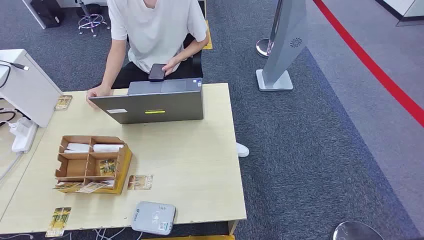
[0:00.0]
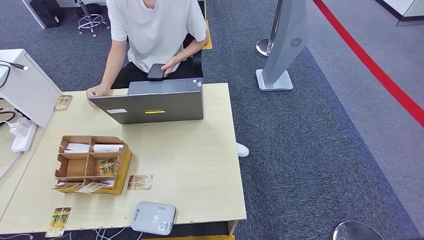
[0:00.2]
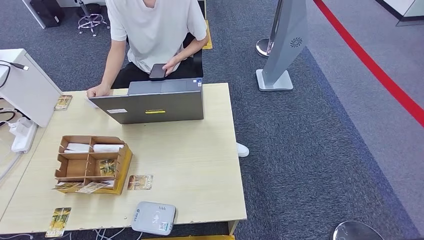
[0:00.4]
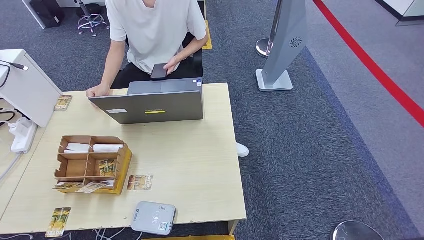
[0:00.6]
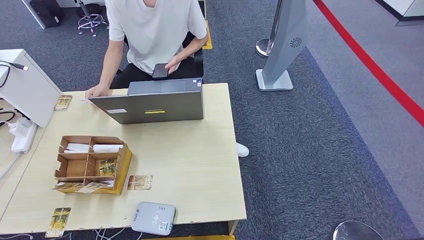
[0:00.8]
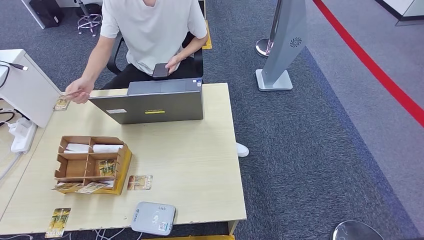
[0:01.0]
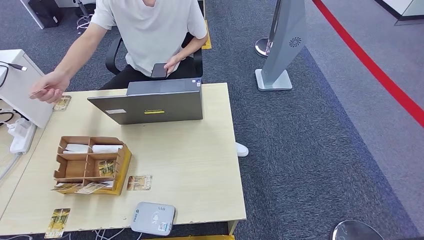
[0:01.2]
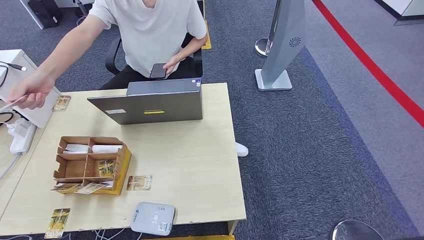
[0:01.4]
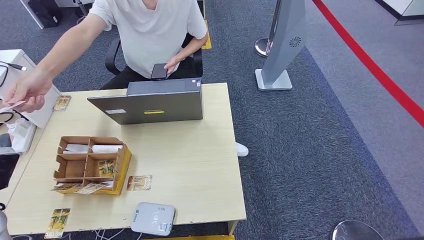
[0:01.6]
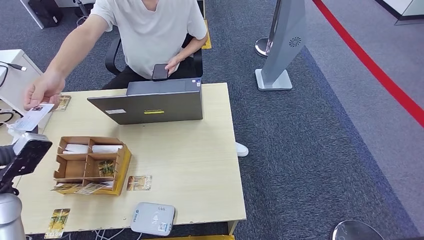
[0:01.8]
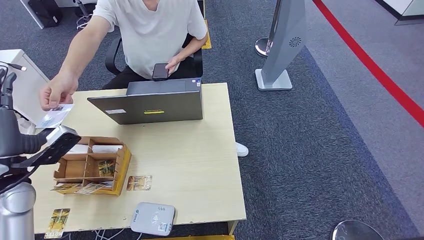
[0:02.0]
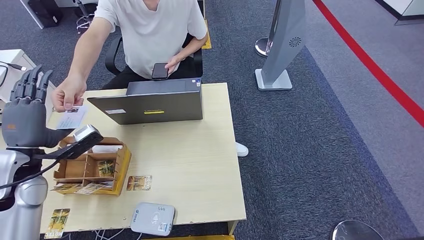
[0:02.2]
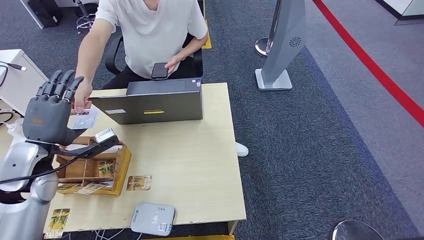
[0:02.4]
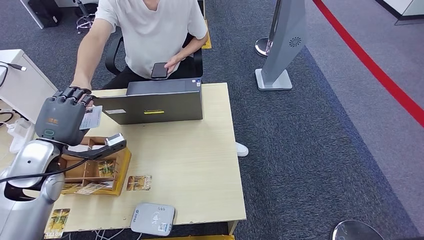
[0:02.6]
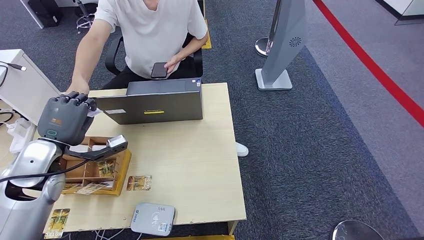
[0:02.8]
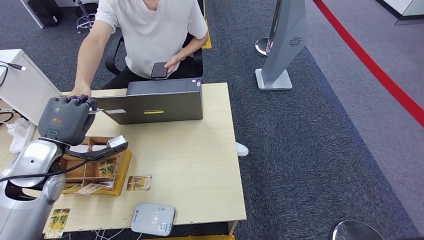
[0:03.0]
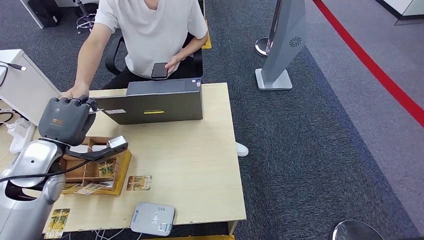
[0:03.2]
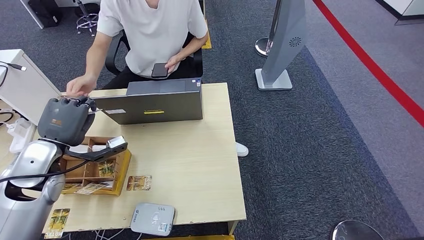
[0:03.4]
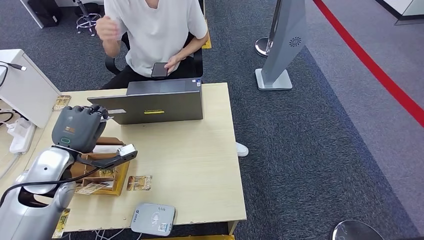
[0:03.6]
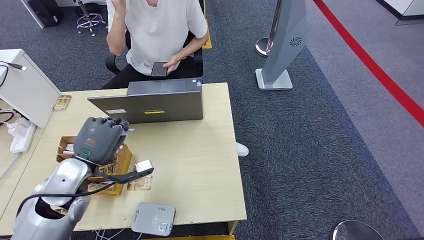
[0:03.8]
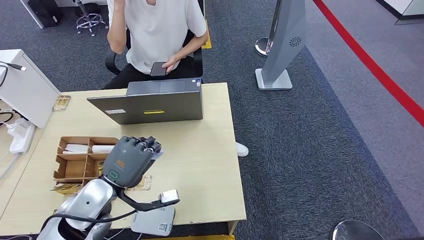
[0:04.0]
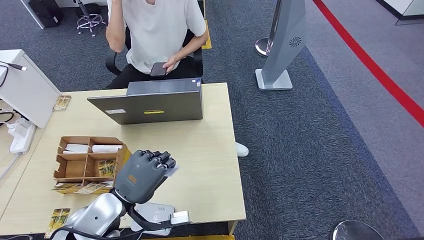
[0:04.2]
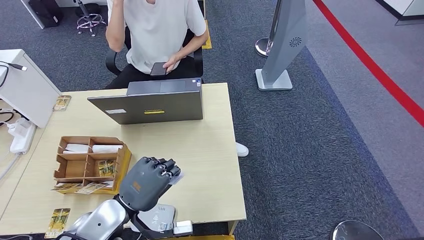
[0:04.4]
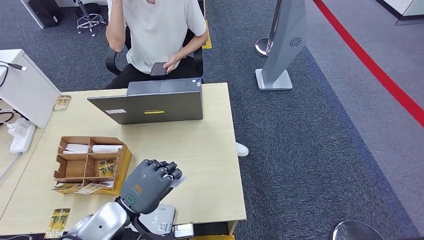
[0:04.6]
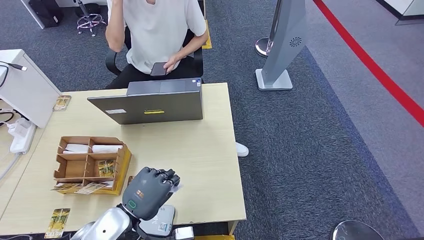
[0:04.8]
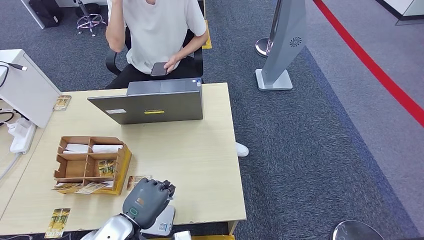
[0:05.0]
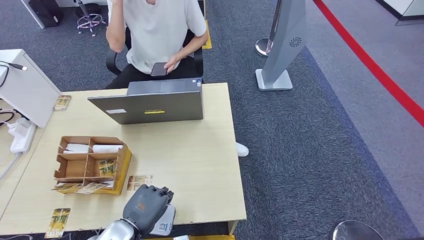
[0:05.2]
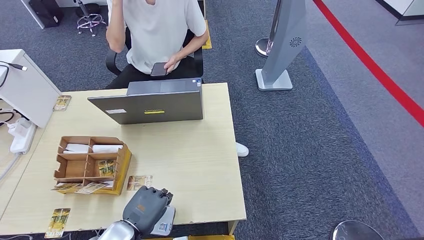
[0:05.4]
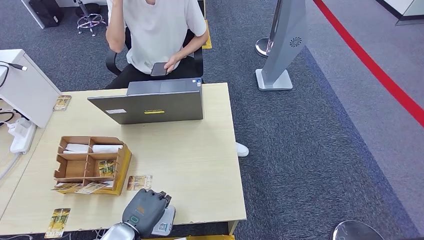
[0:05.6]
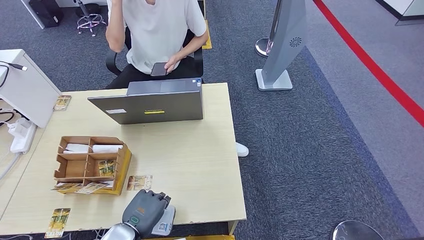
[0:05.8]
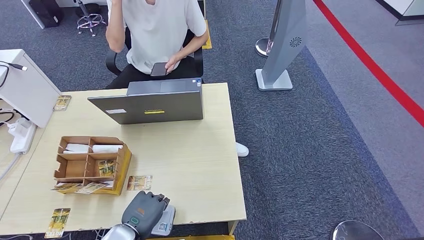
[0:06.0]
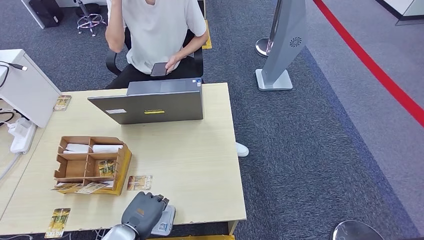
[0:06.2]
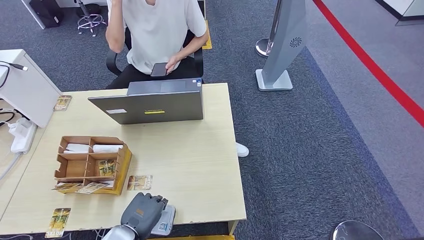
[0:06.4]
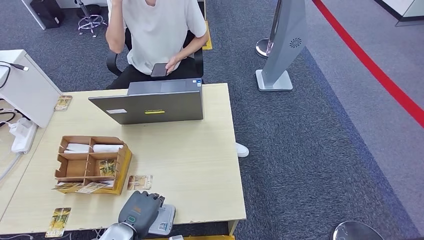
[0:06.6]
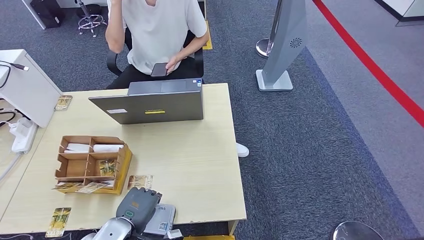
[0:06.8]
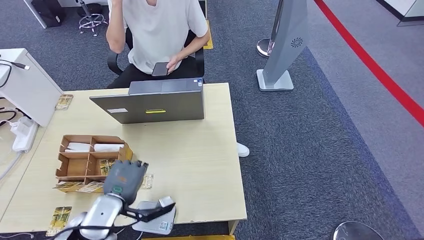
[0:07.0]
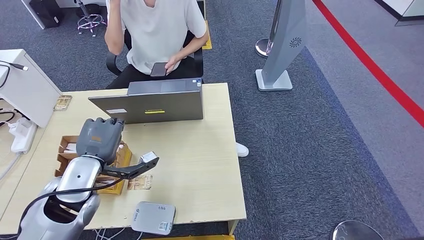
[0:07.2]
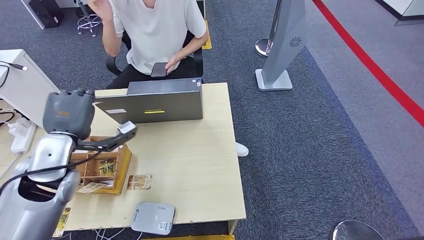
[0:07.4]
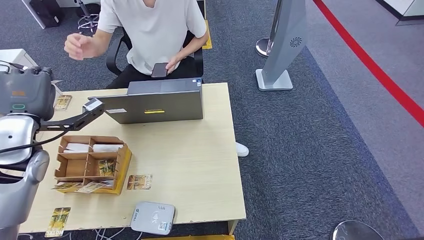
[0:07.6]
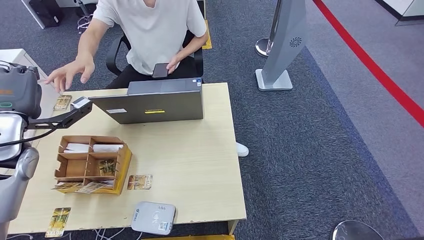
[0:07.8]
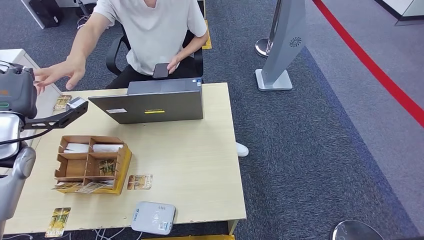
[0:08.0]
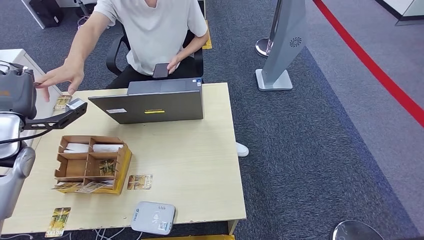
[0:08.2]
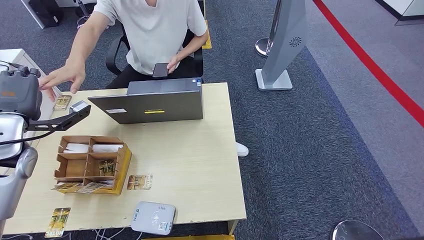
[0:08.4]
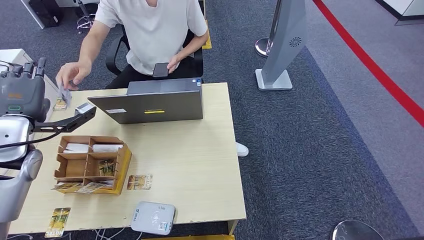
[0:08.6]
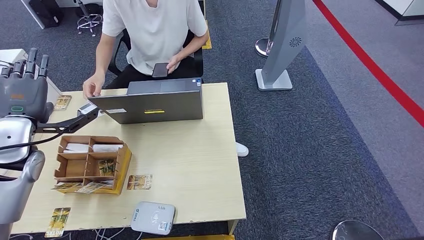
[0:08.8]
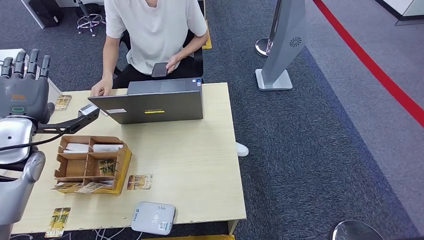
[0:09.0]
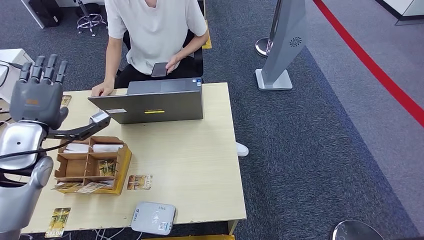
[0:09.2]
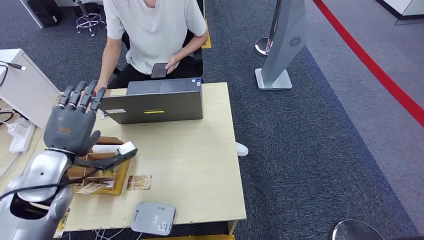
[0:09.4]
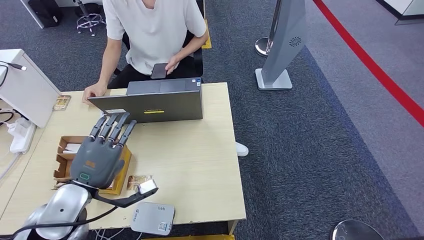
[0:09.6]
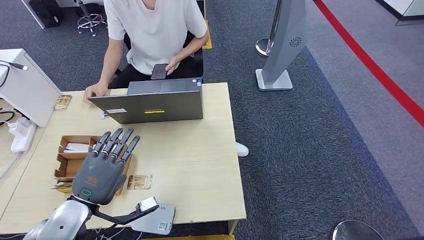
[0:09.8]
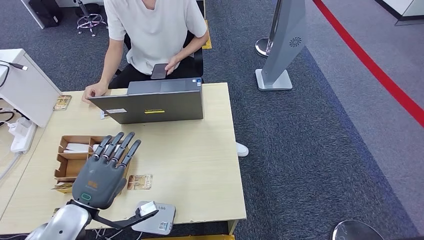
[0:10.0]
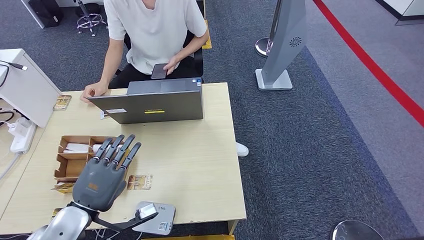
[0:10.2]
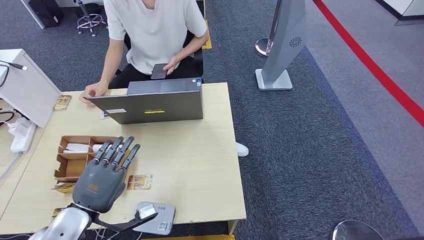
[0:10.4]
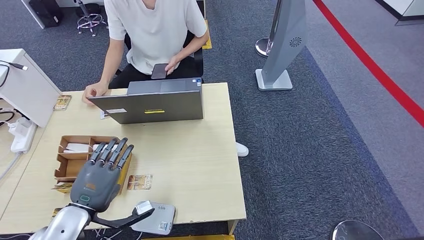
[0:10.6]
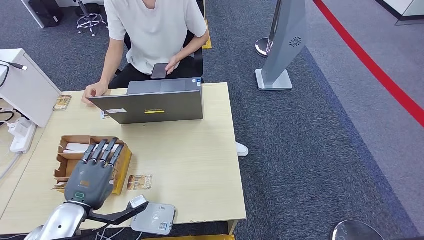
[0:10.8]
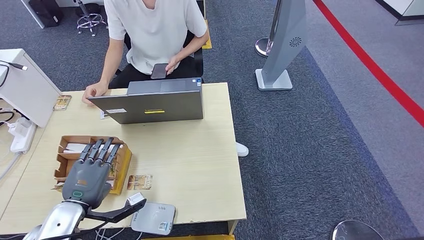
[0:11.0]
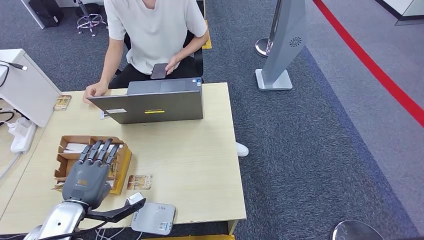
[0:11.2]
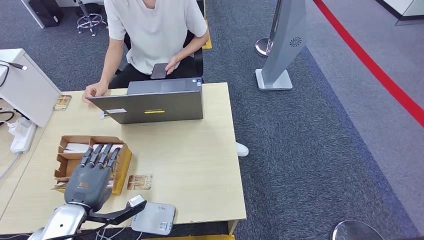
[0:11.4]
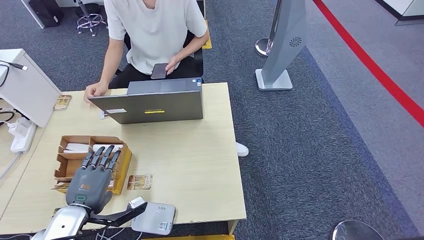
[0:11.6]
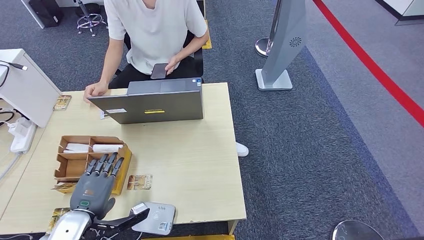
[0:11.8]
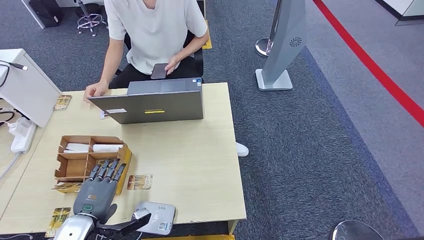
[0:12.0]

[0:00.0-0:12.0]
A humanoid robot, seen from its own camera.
Step, 0:00.0 to 0:03.0: Take the ID card from the person's hand.
Step, 0:03.2 to 0:06.2: Place the ID card on the card reader.
Step, 0:06.6 to 0:08.6: Hand the ID card to the person.
0:01.6 to 0:03.0: The left hand heads to the right and forward, covering roughly 15 cm.
0:03.0 to 0:04.4: The left hand heads to the right, backward and downward, covering roughly 20 cm.
0:04.4 to 0:06.0: The left hand moves downward, about 10 cm.
0:06.0 to 0:07.6: The left hand travels upward, forward and to the left by some 30 cm.
0:07.6 to 0:09.0: The hands stay close to where they were, moving slightly.
0:09.0 to 0:10.4: The left hand moves backward, downward and to the right, roughly 20 cm.
0:10.4 to 0:12.0: The left hand moves downward, about 5 cm.

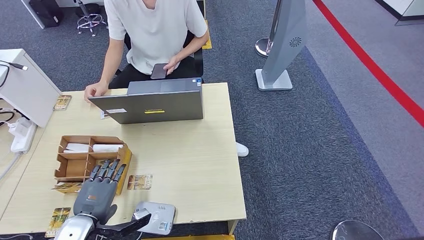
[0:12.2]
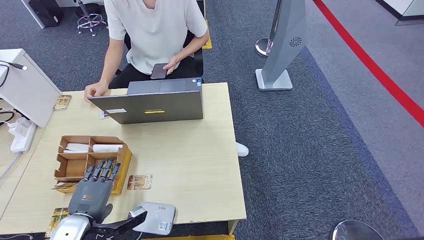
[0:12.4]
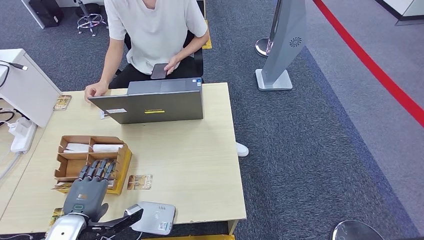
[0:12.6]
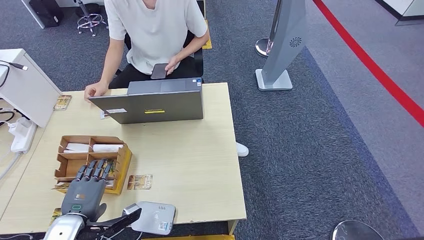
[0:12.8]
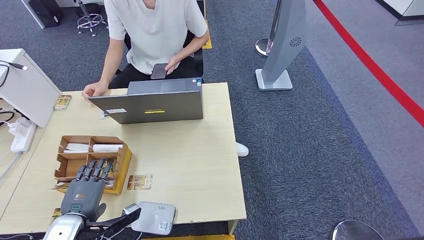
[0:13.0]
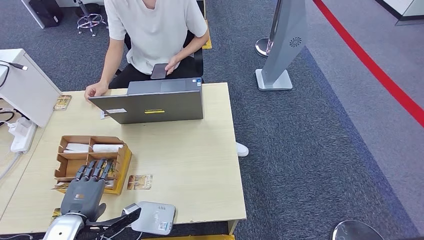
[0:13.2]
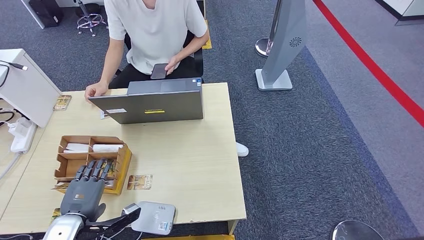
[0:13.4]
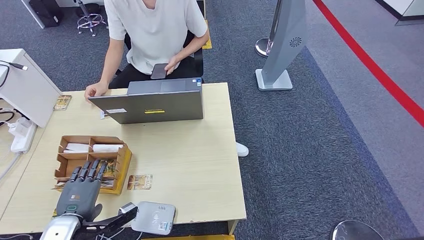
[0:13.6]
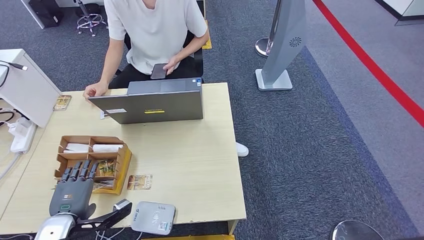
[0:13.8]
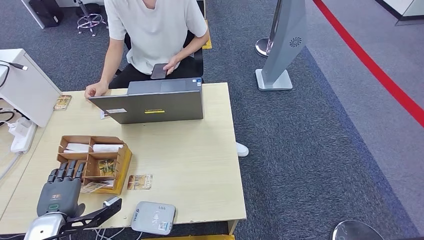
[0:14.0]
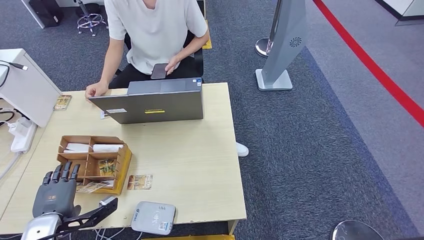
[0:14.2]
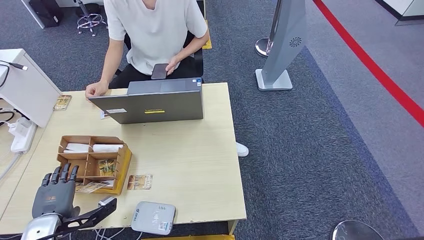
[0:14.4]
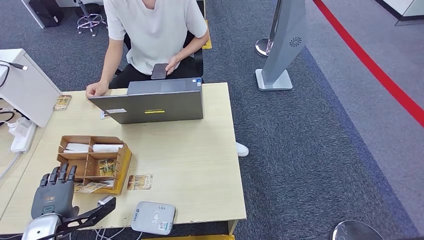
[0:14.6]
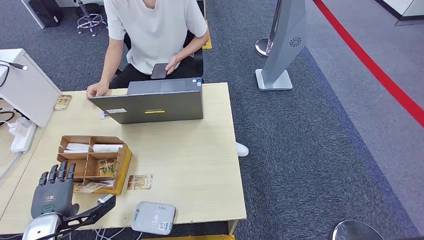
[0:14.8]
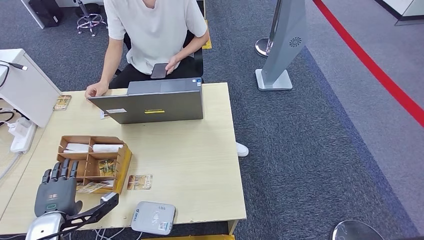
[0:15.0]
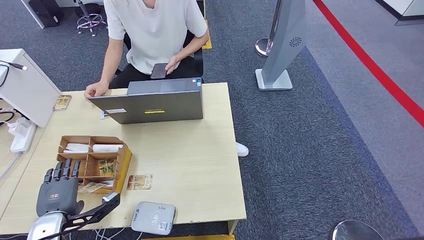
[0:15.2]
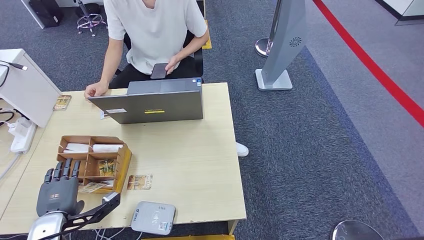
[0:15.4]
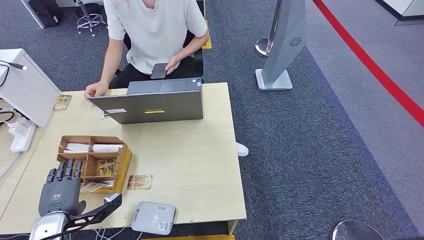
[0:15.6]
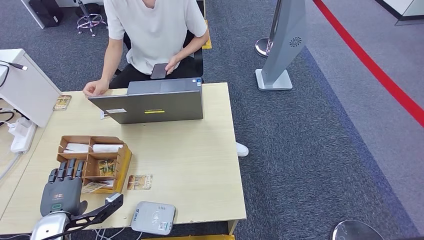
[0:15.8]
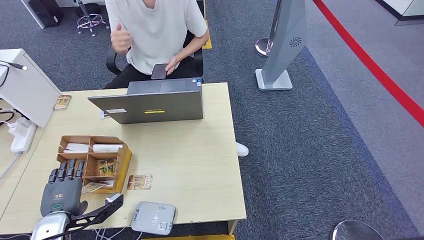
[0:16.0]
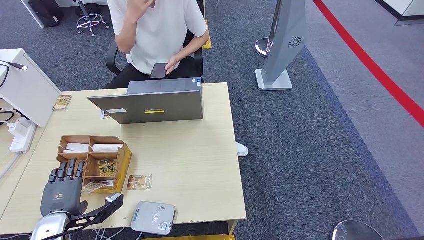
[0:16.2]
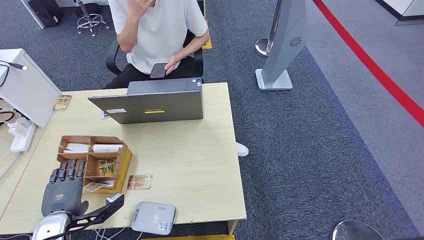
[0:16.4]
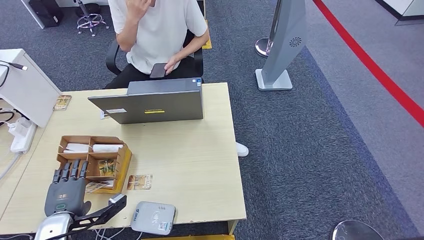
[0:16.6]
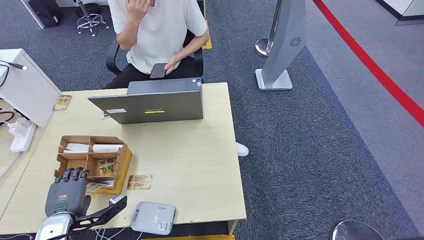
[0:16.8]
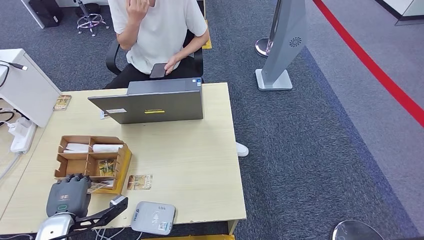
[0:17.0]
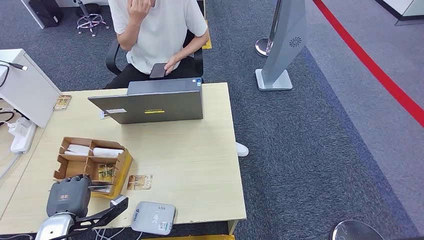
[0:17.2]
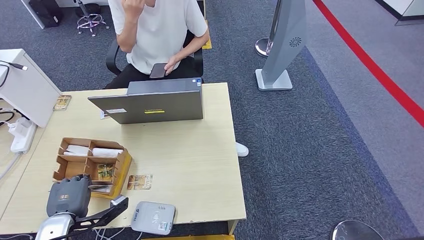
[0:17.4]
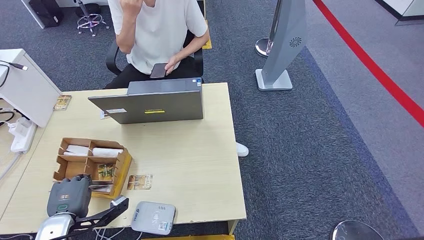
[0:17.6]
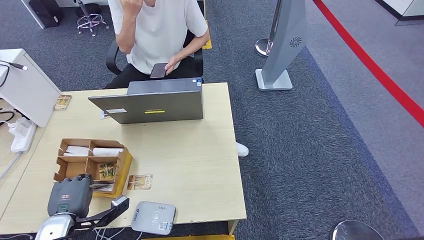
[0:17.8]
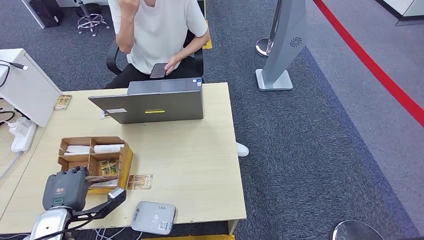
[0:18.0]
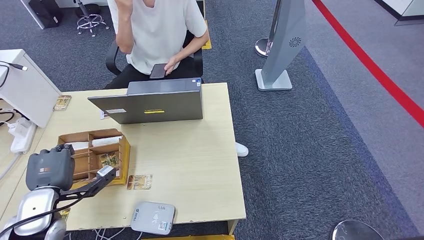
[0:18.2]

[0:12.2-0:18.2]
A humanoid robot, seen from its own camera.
0:12.2 to 0:13.8: The hands move only a little.
0:13.8 to 0:15.2: The hands make only small movements.
0:15.2 to 0:16.6: The two hands keep their place.
0:16.6 to 0:18.2: The left hand moves upward, about 5 cm.
